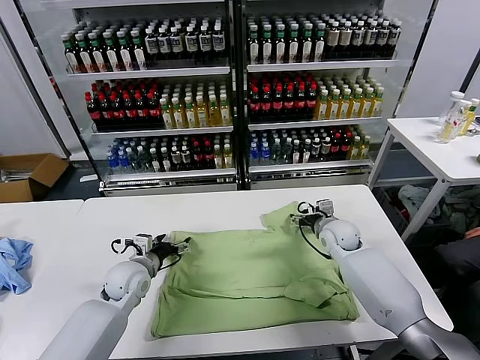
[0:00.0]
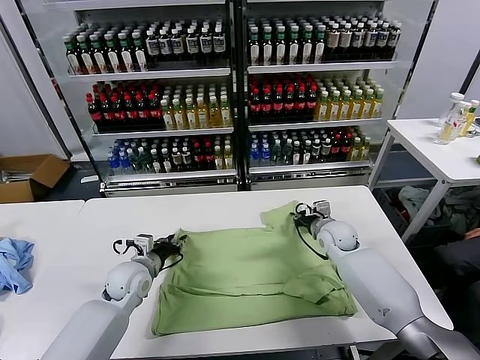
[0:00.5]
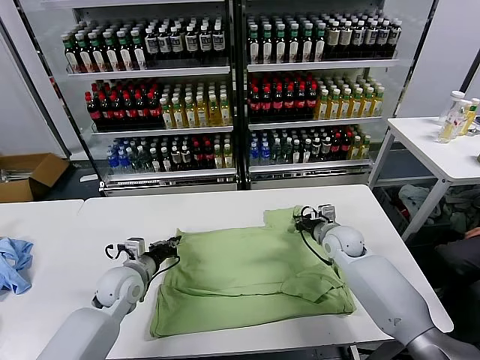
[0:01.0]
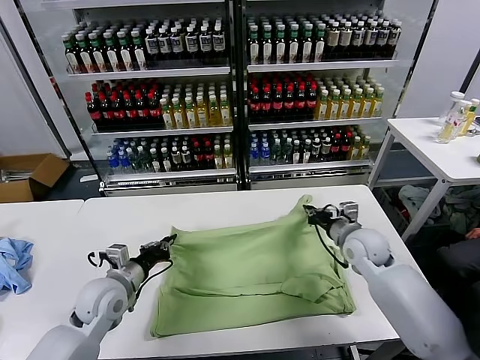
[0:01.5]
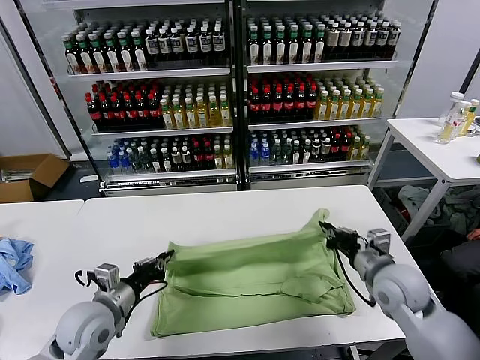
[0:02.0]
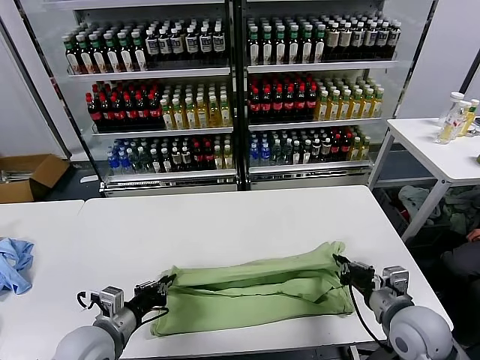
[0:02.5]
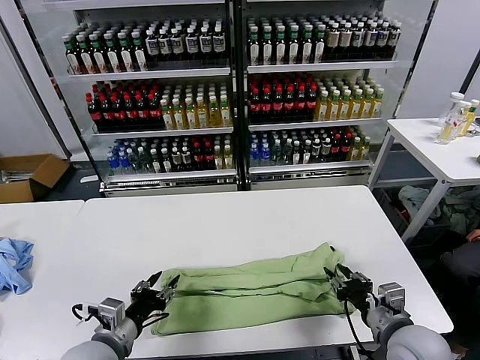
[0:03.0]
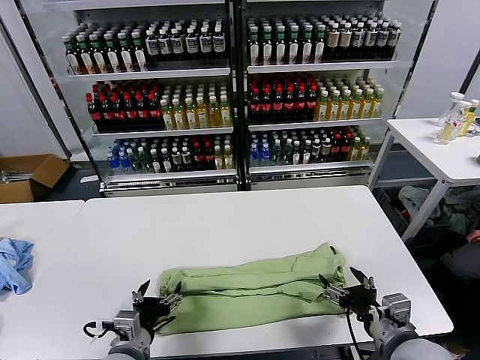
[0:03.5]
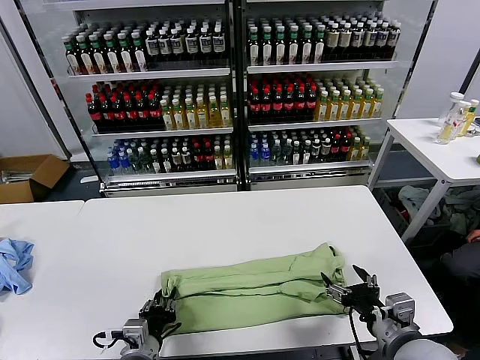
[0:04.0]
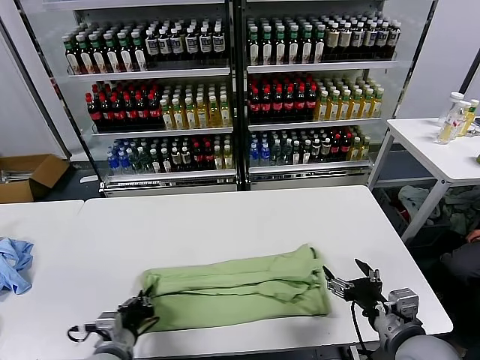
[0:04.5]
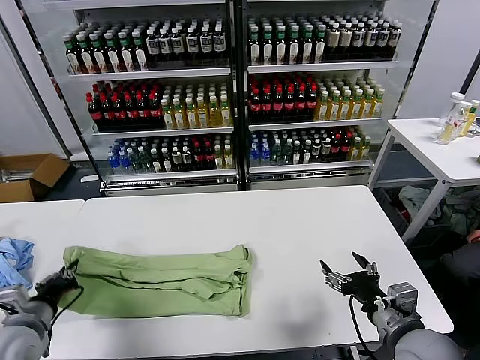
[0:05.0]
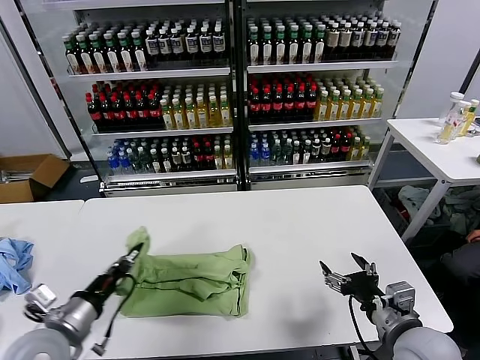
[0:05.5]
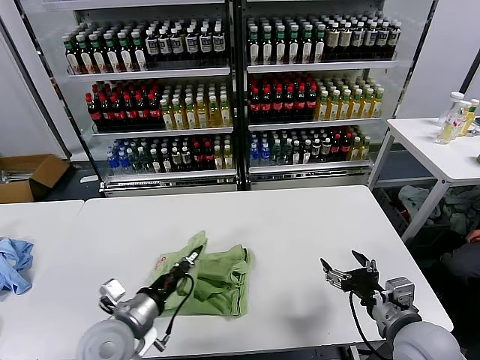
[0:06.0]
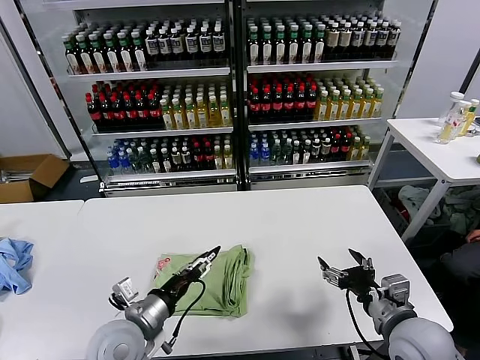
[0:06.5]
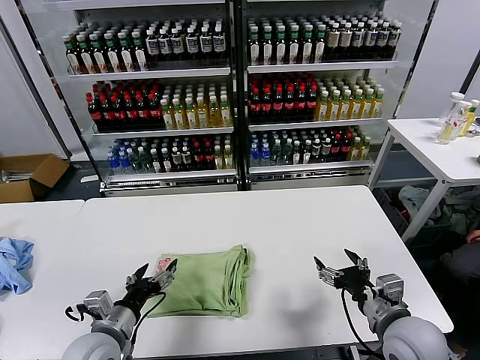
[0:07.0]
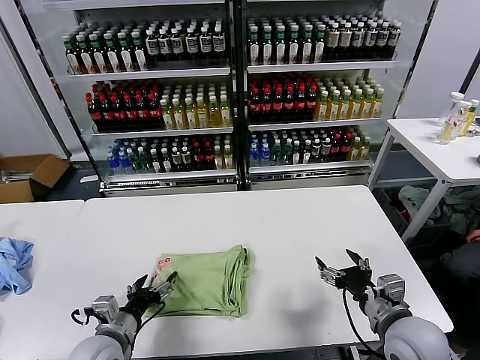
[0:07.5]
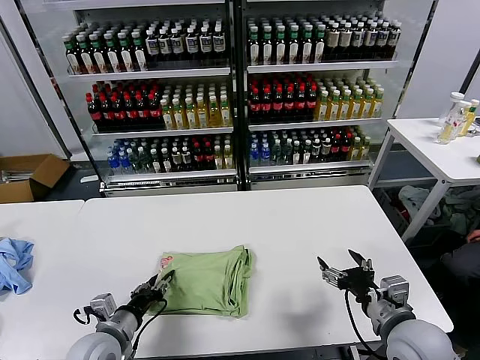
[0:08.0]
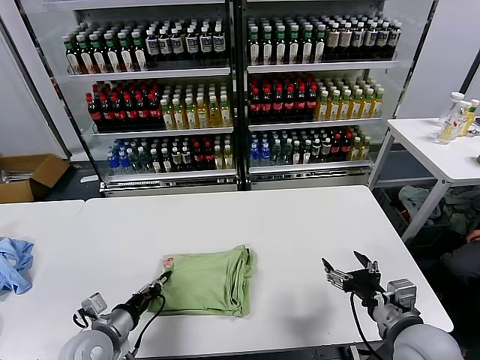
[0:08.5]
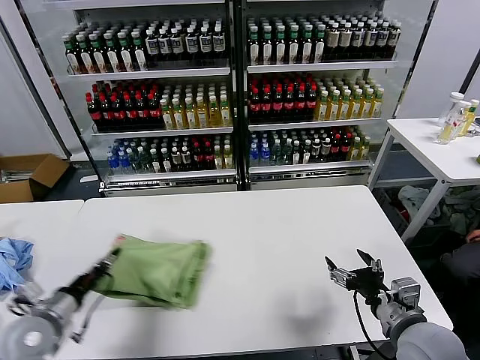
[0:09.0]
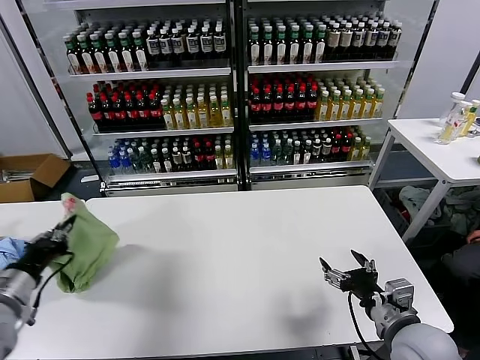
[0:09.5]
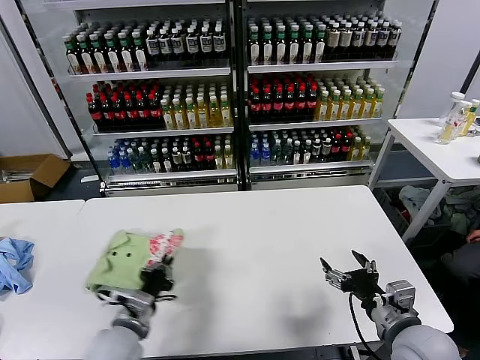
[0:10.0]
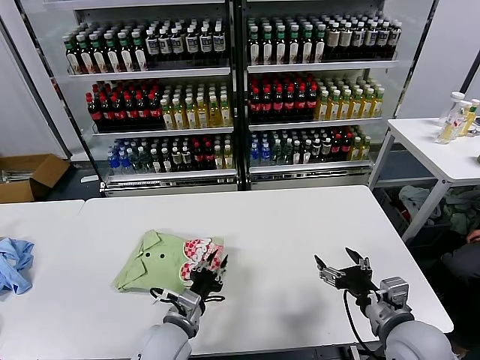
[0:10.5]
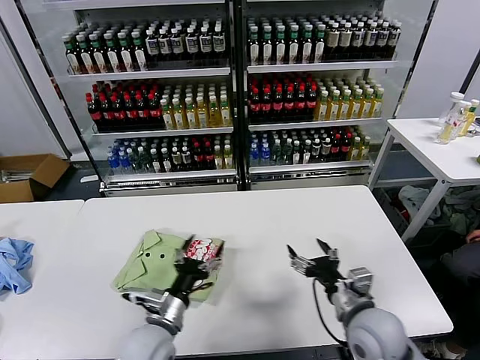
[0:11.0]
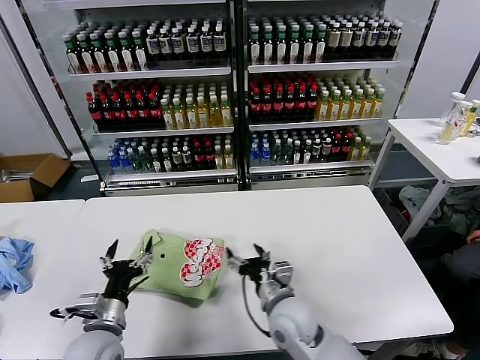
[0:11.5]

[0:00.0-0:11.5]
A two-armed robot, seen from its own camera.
Task of the whole recording: fold and organize the clothes.
Step, 0:01.0 to 0:03.0: use both grippers to drag the upper edge of the fabric backward and fold it over the lower edge.
Step, 0:03.5 to 0:04.0: use the left gripper to clamp the left edge of the fabric.
Step, 0:04.5 to 0:06.5: use the left gripper to drag the left edge of the fabric to the left and folds it over the right edge.
Step, 0:07.0 to 0:10.5: Flip the folded clothes over with left gripper.
0:00.0 to 0:02.0: The two grippers go approximately 15 cm backward. The right gripper closes up; the left gripper closes up.
0:02.0 to 0:04.0: The left gripper shifts about 15 cm backward, to the right and downward, and opens its fingers, while the right gripper heads backward, covering about 15 cm, and opens up.
0:04.0 to 0:06.0: The left gripper heads upward and forward, covering about 10 cm, travels to the left and back again, roughly 20 cm each way, and closes its fingers.
0:06.0 to 0:07.5: The left gripper heads downward, covering about 5 cm, and opens its fingers.
0:07.5 to 0:09.5: The left gripper moves to the left and upward, some 20 cm, and closes.
0:09.5 to 0:11.5: The left gripper travels to the right and downward by some 20 cm, and opens; the right gripper goes some 20 cm to the left and forward.

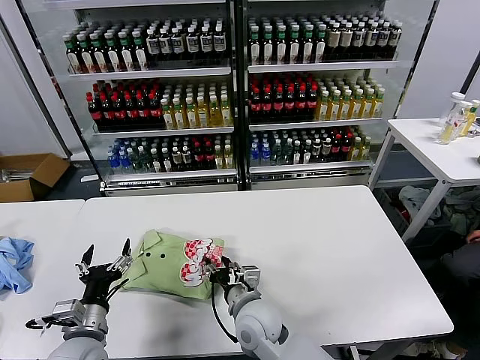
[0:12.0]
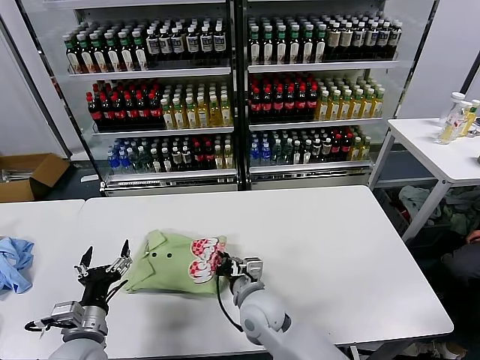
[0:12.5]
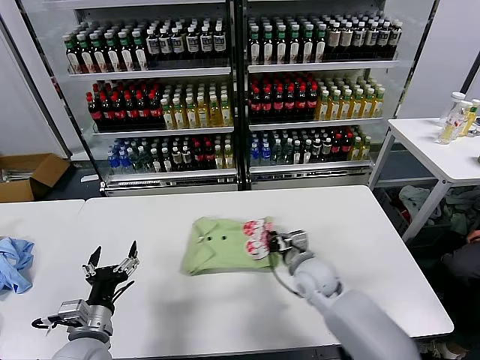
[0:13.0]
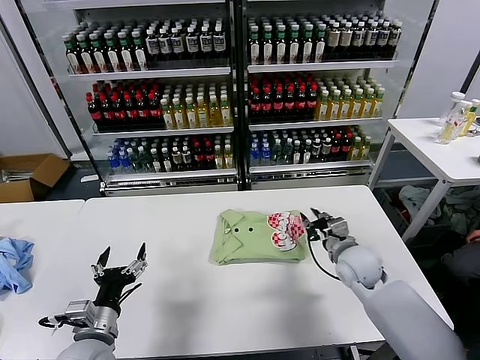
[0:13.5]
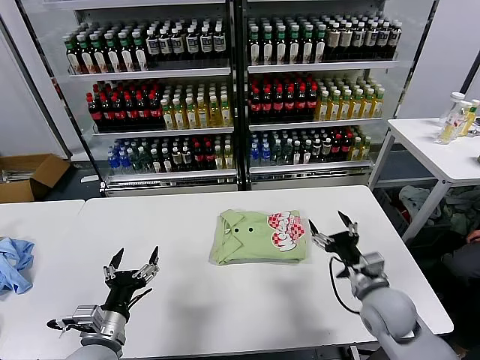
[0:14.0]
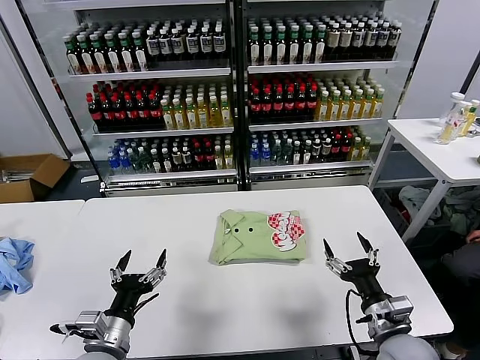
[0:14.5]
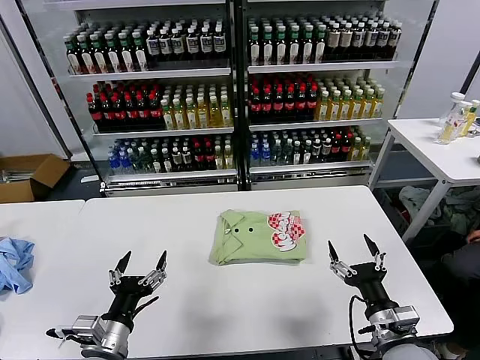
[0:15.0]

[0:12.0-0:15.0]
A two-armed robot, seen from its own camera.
Task of the whole recording: fold and organize the clothes.
Step, 0:12.0 to 0:13.5: Drag the clothes to the center of the table.
0:12.0 to 0:13.5: The right gripper is displaced to the right and forward by about 25 cm, and closes its fingers.
0:13.5 to 0:15.0: The left gripper shifts by about 5 cm, while the right gripper travels backward by some 20 cm, and opens its fingers.
